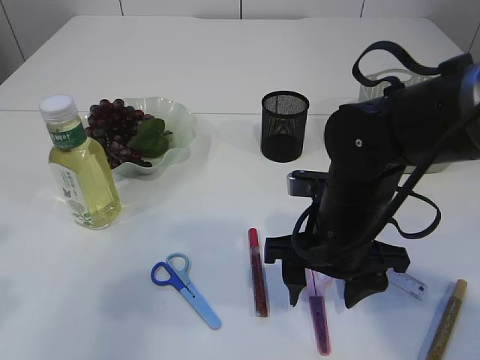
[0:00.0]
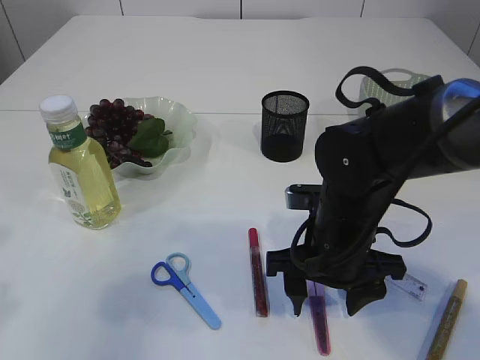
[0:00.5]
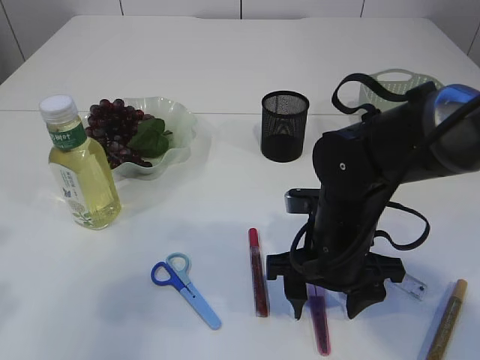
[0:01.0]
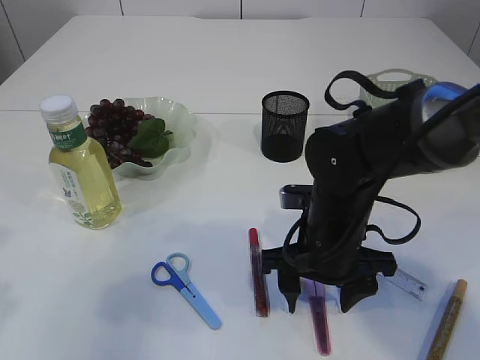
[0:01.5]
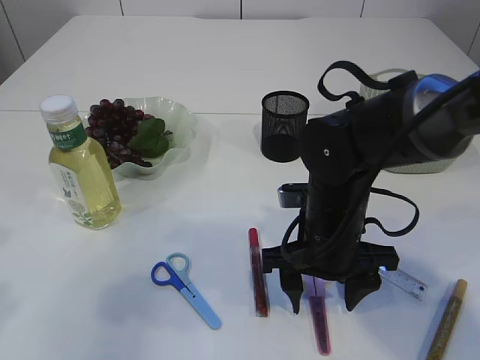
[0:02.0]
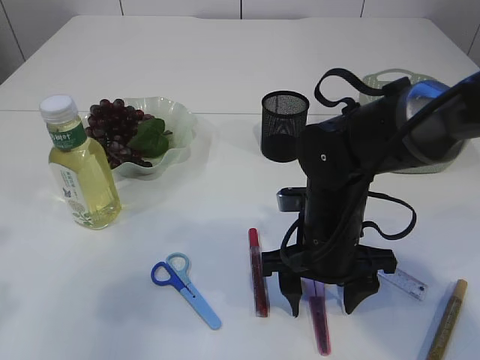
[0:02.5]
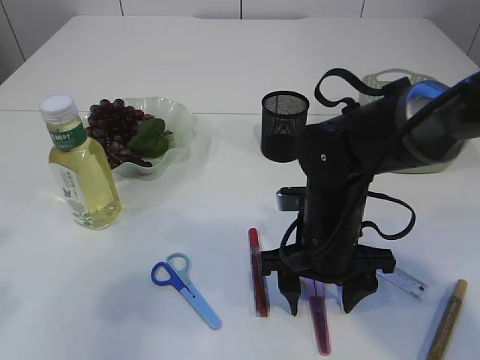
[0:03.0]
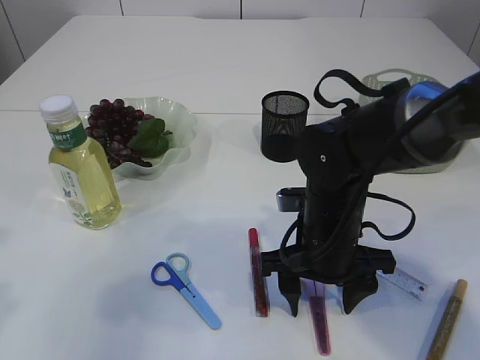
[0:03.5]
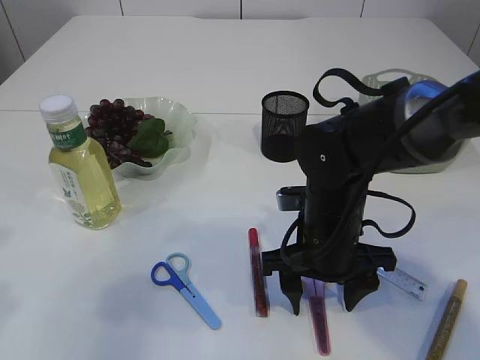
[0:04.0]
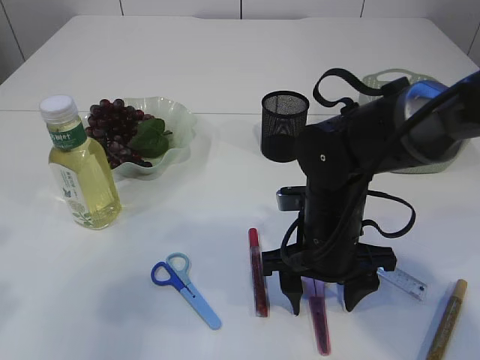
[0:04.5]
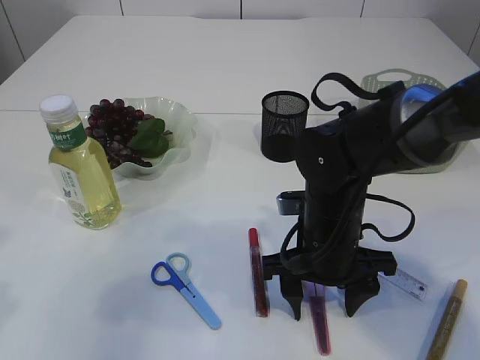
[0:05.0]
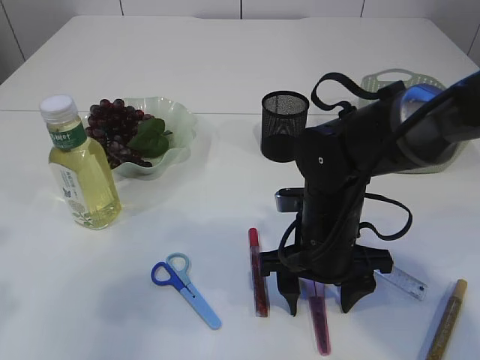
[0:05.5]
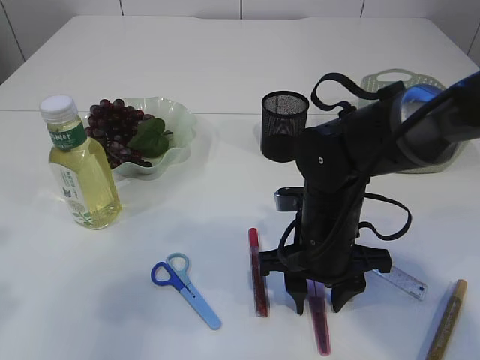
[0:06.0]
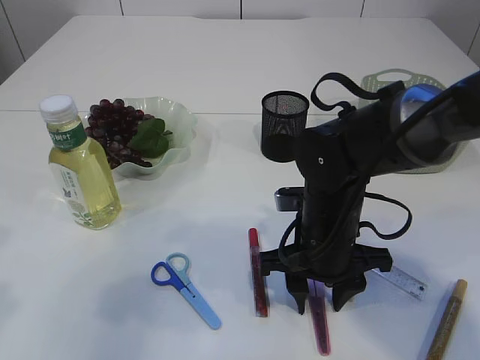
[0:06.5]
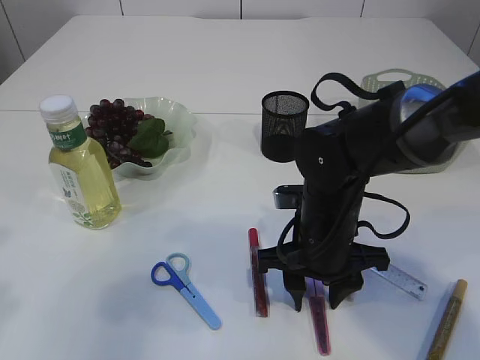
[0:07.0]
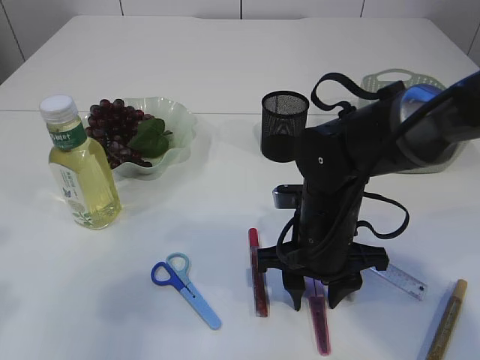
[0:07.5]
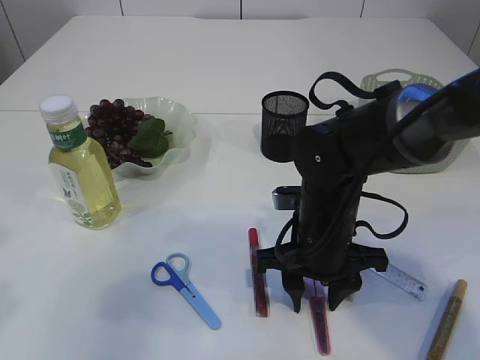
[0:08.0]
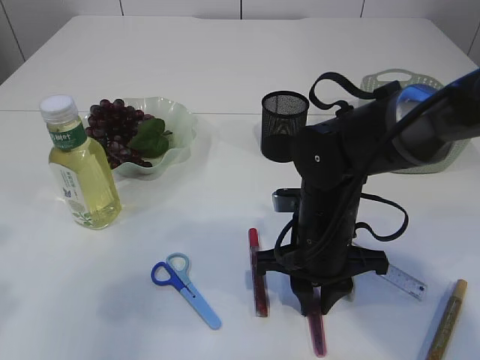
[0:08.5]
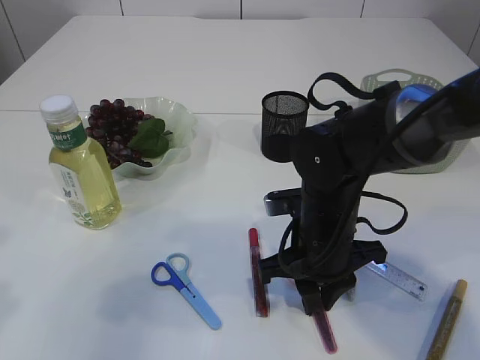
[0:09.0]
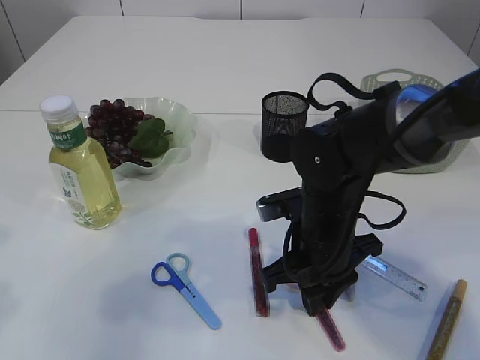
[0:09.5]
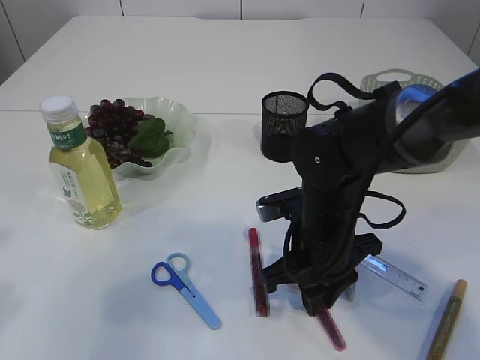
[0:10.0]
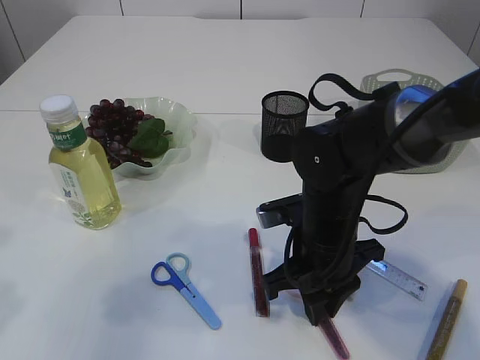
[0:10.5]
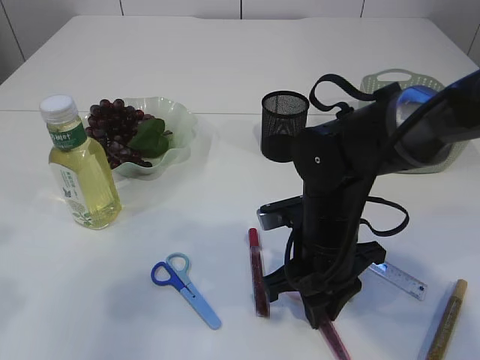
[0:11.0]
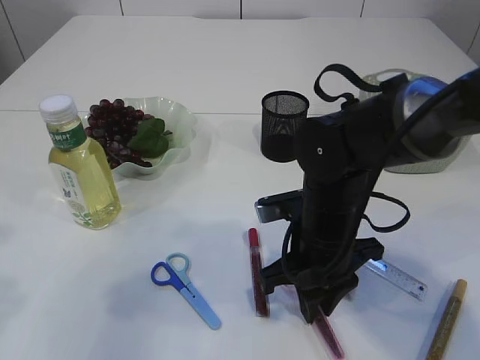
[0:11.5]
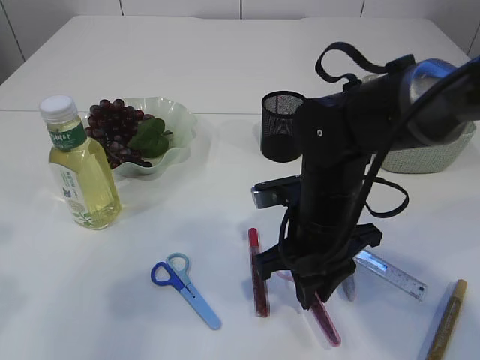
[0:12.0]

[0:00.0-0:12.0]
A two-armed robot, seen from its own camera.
0:00.0 to 0:02.0: There are only small adjustments of the grippers.
0:02.0 to 0:06.0: Neither gripper changes place.
0:06.0 to 0:08.0: Neither gripper changes place.
0:08.0 to 0:10.0: The right gripper closes up.
0:10.0 to 0:12.0: There are only small adjustments of the grippers.

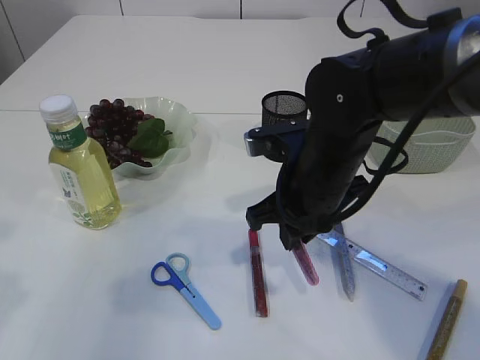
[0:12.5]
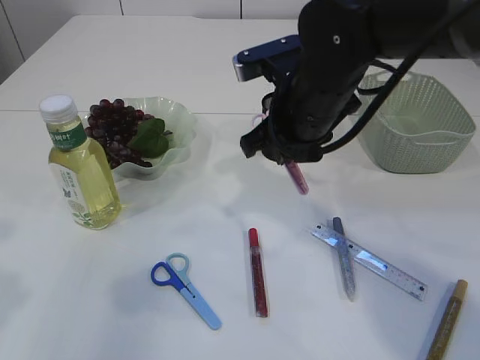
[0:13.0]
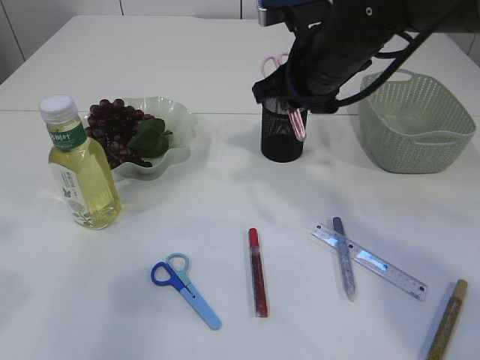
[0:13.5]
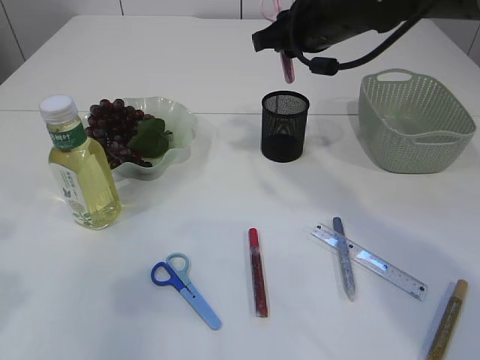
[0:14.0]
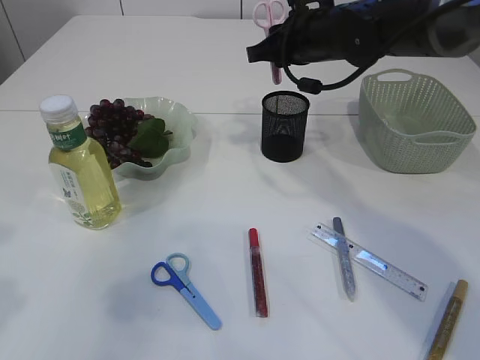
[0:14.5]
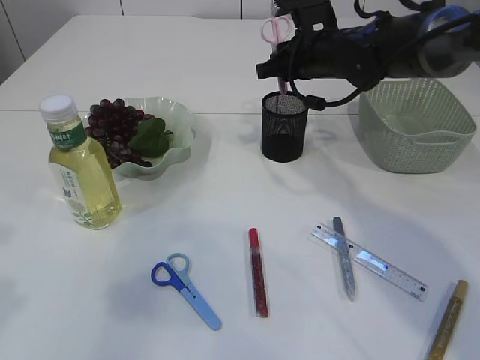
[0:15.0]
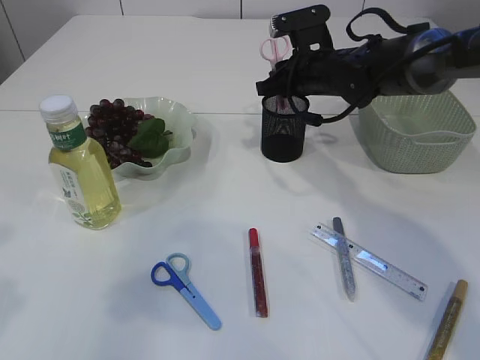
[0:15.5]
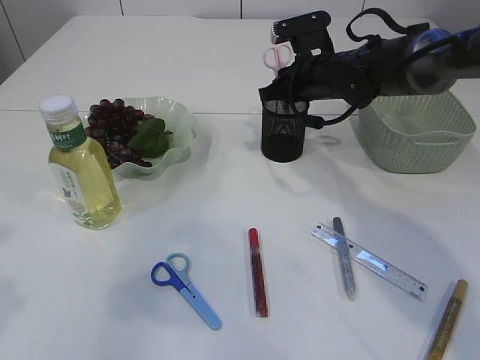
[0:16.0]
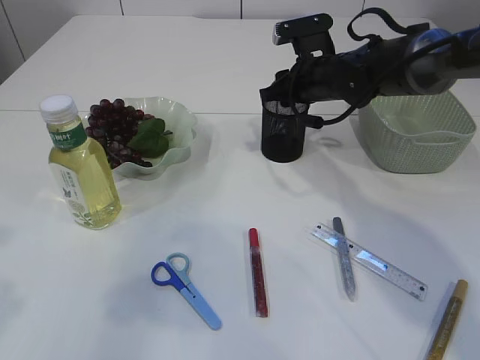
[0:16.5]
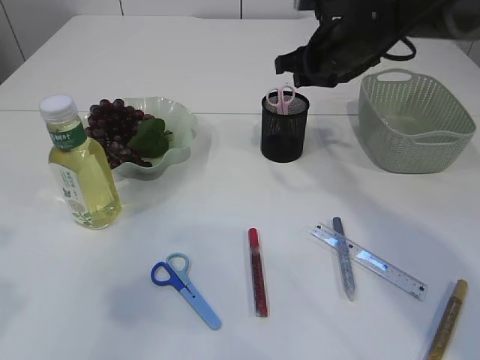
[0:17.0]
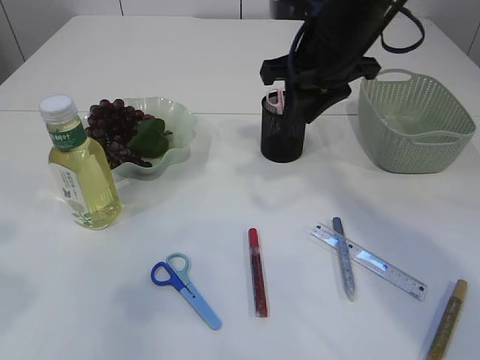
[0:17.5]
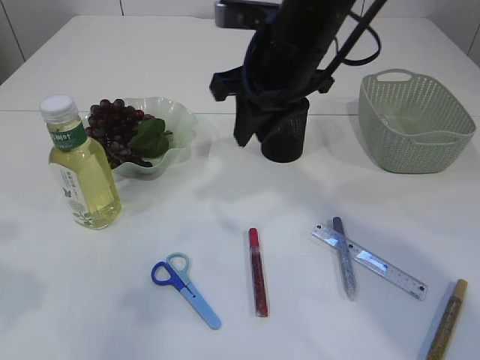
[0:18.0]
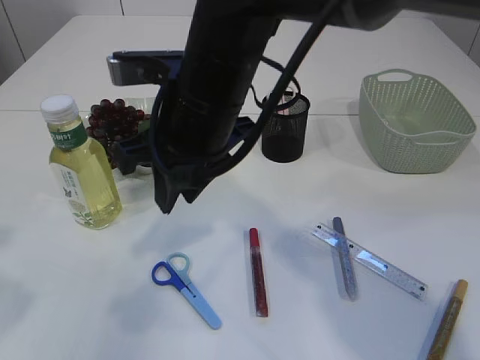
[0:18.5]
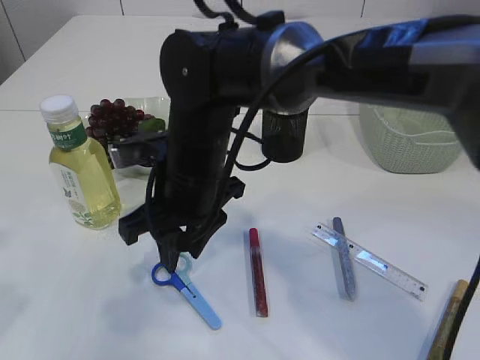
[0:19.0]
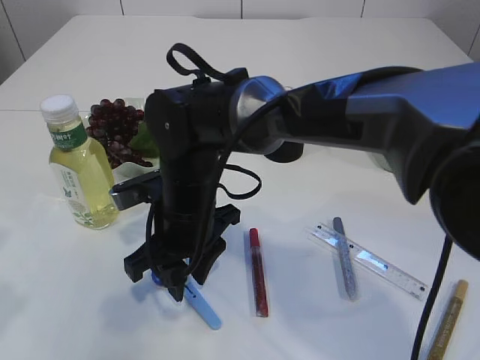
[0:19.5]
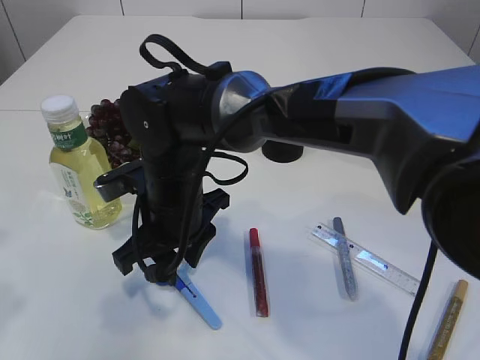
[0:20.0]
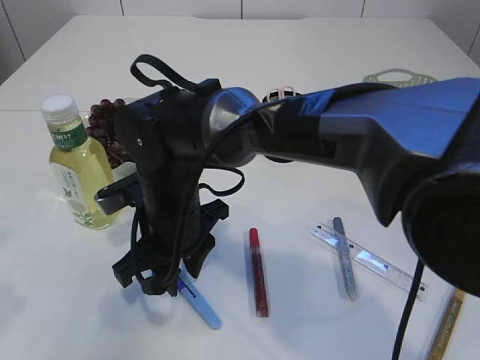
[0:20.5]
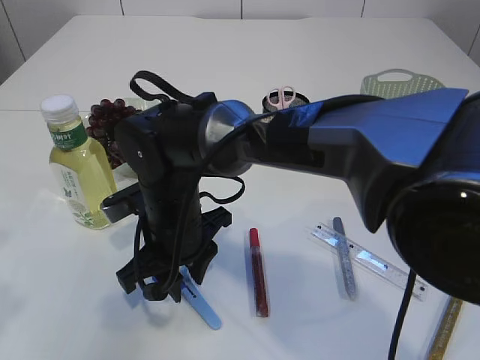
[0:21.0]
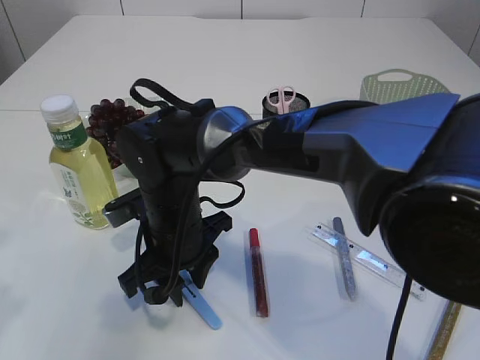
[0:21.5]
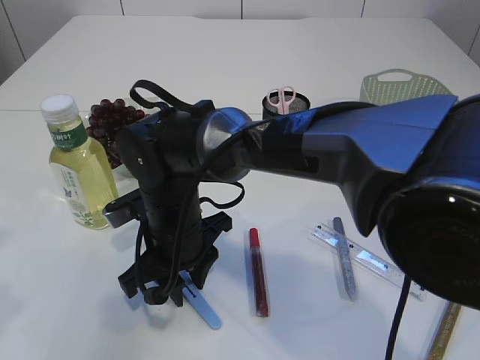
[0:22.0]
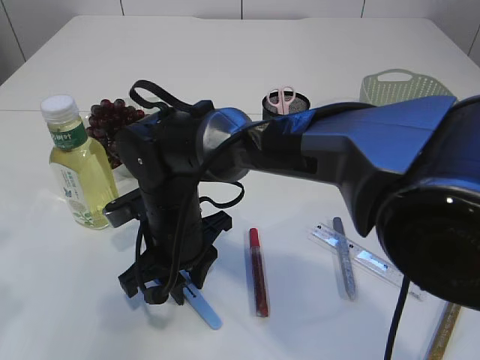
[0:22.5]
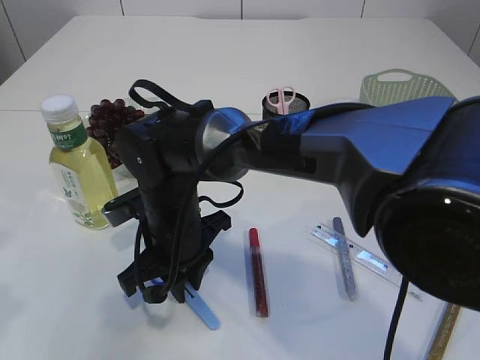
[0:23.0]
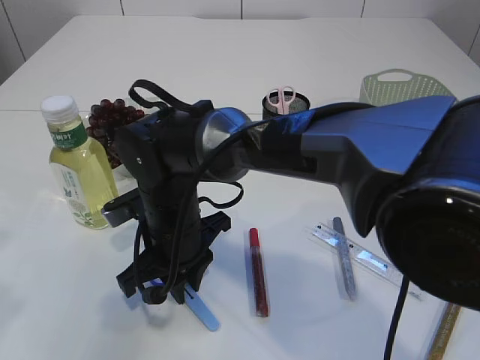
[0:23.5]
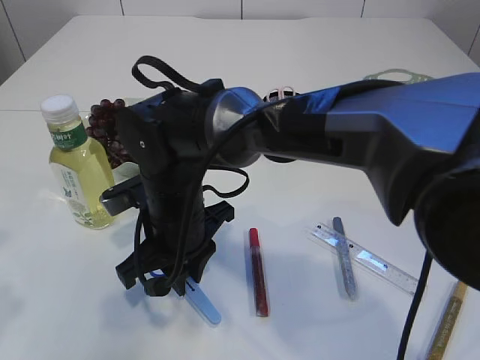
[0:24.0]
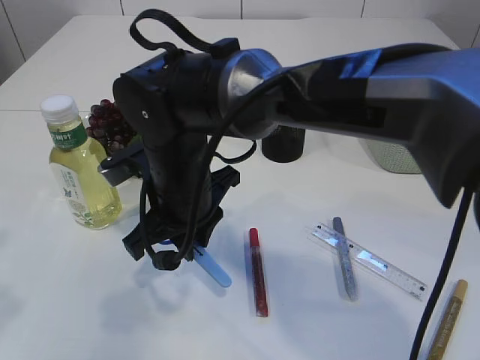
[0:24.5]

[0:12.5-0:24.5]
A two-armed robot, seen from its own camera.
Step, 0:13.0 to 0:17.0: Place the pink scissors into the pen holder.
Step, 0:17.5 to 0:24.5: pick up the blue scissors.
0:12.5 to 0:14.5: The right gripper moves forward and upward, about 20 cm.
0:14.5 to 0:16.5: The right gripper shifts about 5 cm downward.
0:16.5 to 0:18.5: The right gripper travels backward, to the left and upward by roughly 25 cm.
0:18.5 to 0:20.5: The right gripper travels downward and to the left by roughly 15 cm.
0:20.5 to 0:22.5: The grippers make only small movements.
0:22.5 to 0:24.5: The right gripper shifts some 5 cm upward.

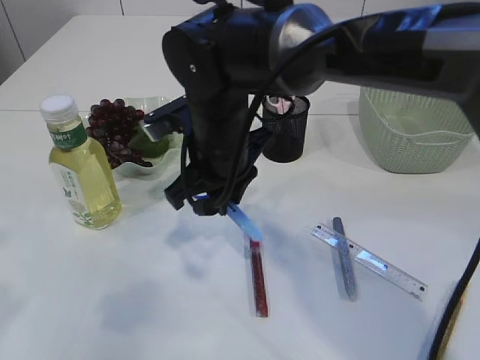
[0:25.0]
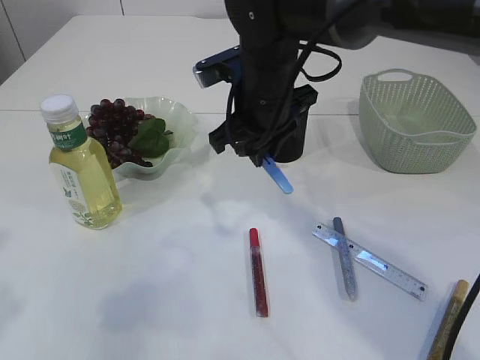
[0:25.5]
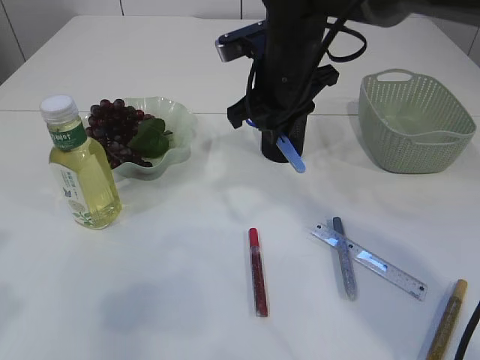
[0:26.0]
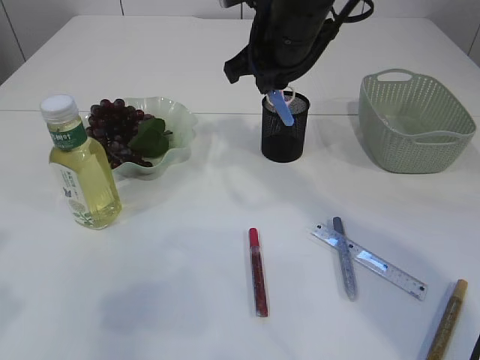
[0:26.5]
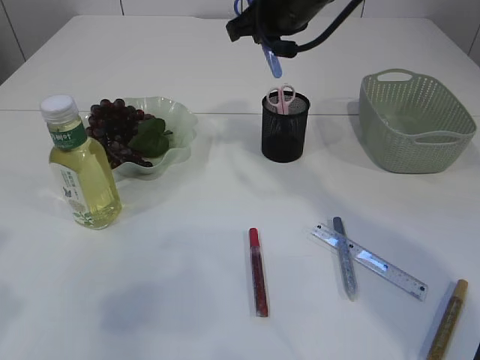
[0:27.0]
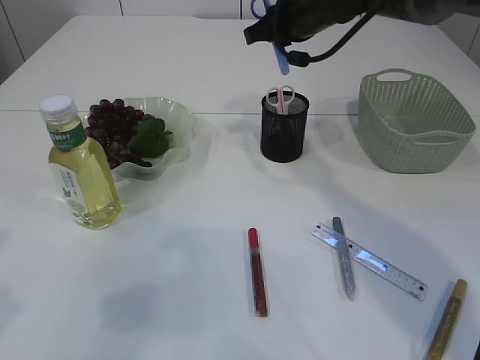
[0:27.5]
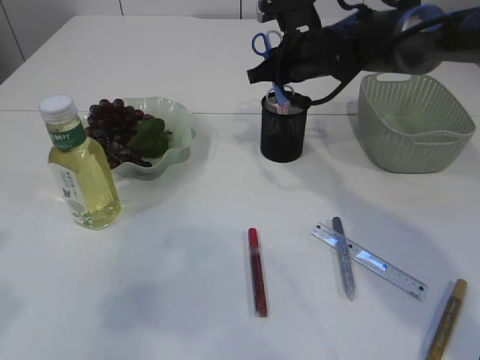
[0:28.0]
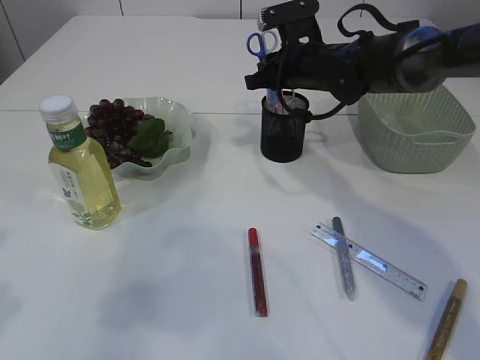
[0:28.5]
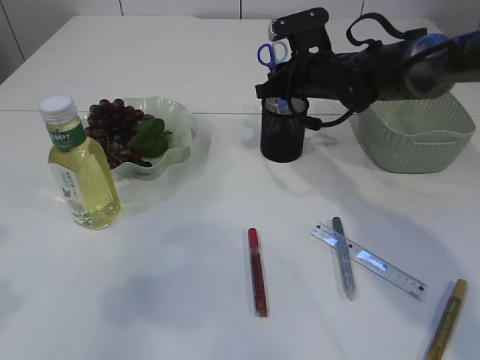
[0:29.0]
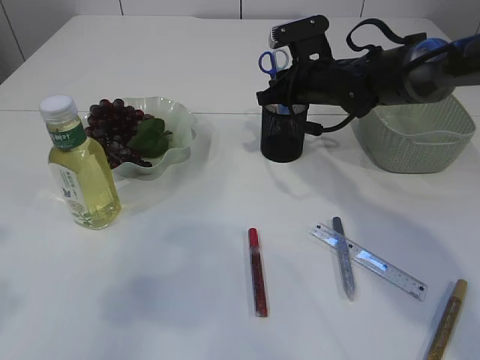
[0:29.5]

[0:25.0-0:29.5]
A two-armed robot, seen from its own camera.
0:25.0 to 0:27.0: The right gripper goes roughly 20 cm upward, forward and to the right.
0:27.0 to 0:29.5: The right gripper goes some 15 cm downward.
